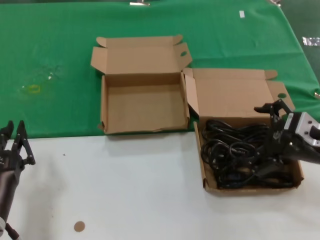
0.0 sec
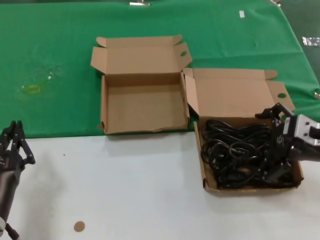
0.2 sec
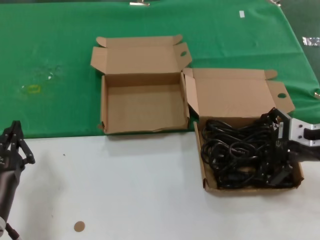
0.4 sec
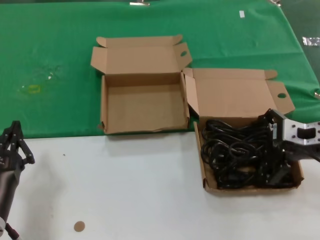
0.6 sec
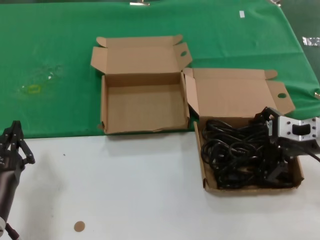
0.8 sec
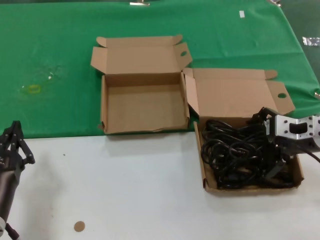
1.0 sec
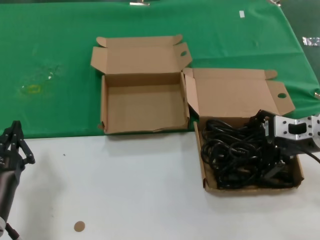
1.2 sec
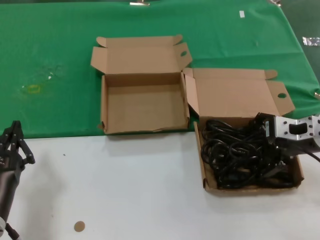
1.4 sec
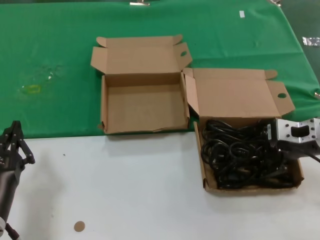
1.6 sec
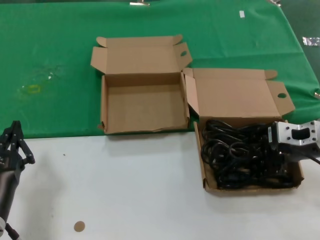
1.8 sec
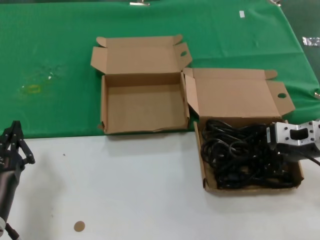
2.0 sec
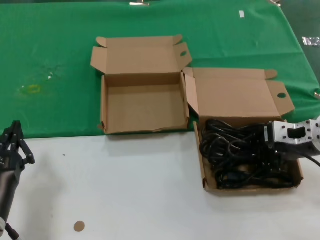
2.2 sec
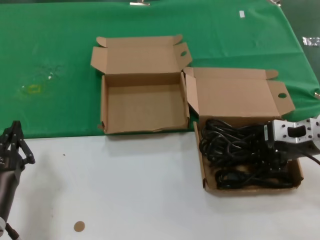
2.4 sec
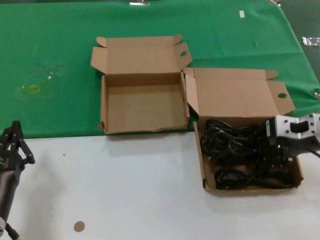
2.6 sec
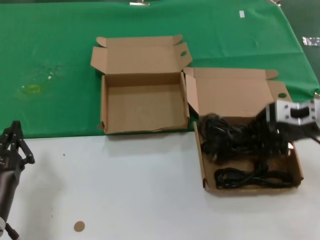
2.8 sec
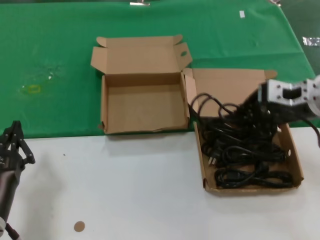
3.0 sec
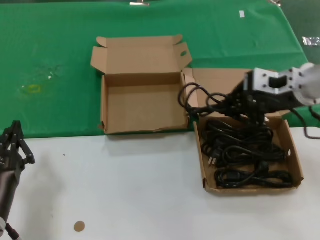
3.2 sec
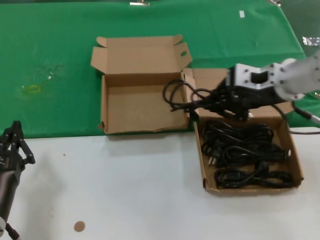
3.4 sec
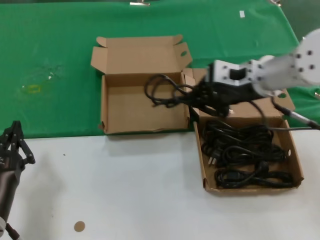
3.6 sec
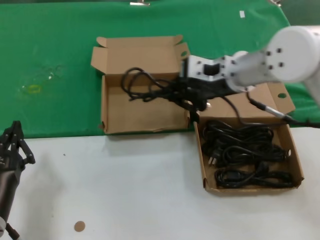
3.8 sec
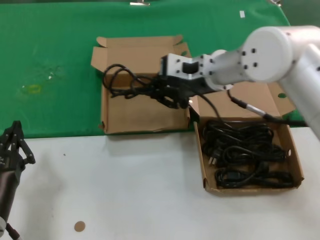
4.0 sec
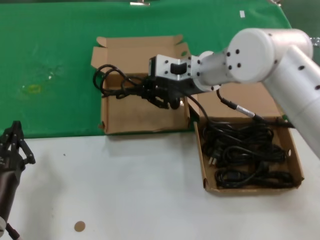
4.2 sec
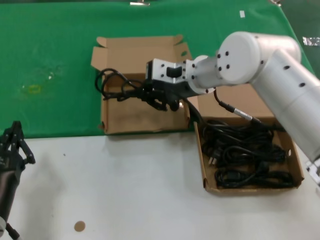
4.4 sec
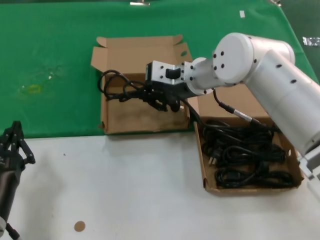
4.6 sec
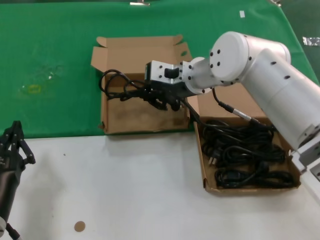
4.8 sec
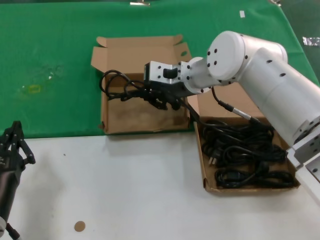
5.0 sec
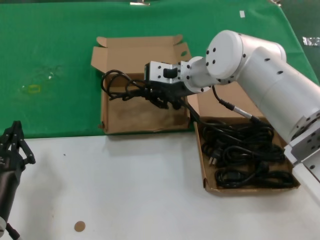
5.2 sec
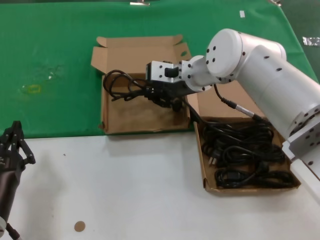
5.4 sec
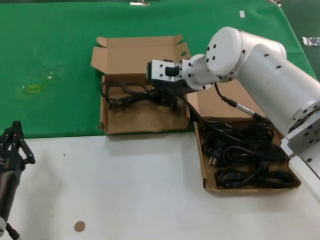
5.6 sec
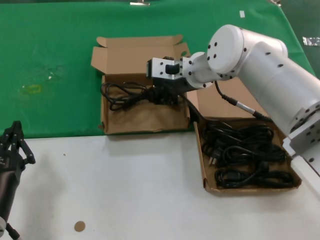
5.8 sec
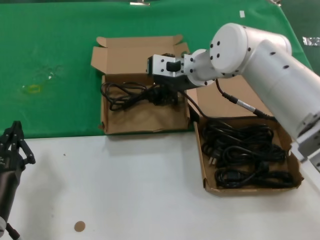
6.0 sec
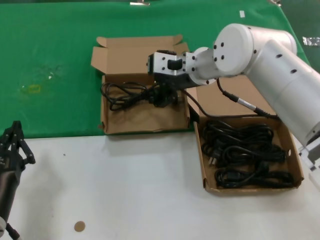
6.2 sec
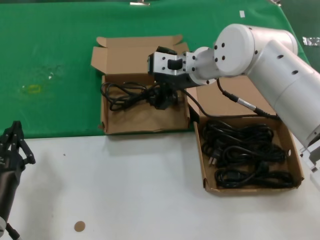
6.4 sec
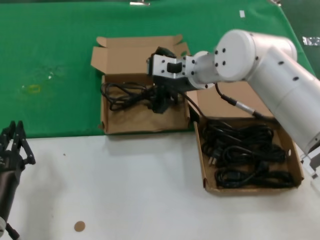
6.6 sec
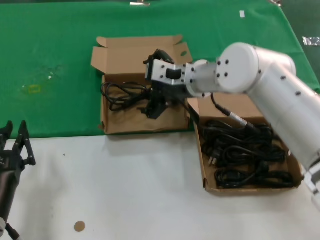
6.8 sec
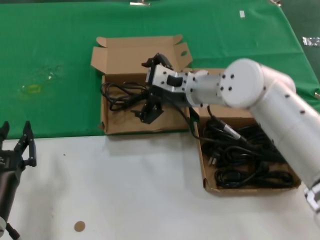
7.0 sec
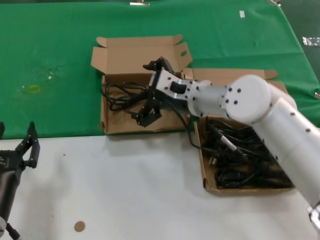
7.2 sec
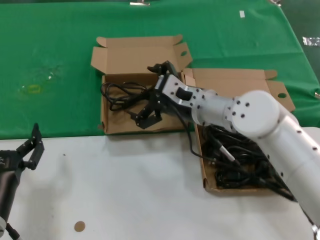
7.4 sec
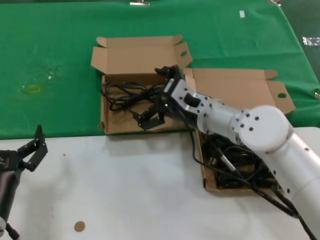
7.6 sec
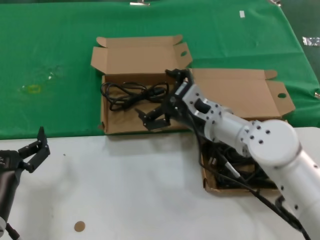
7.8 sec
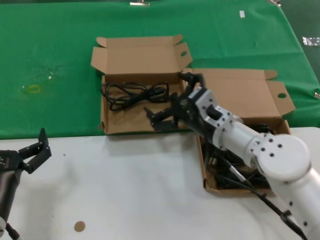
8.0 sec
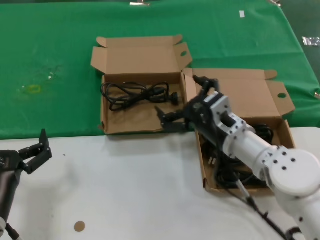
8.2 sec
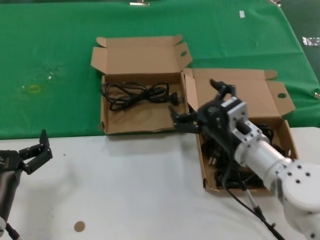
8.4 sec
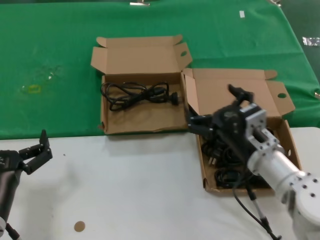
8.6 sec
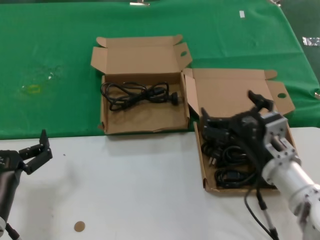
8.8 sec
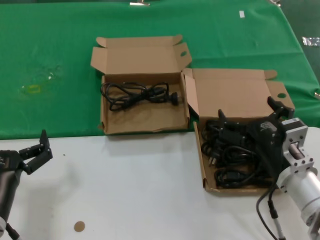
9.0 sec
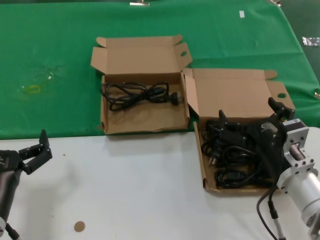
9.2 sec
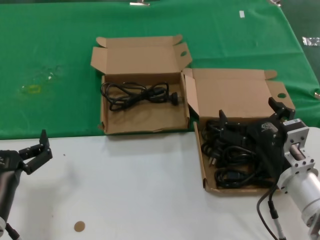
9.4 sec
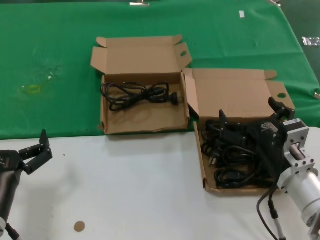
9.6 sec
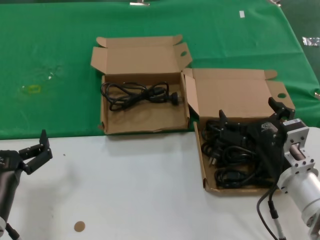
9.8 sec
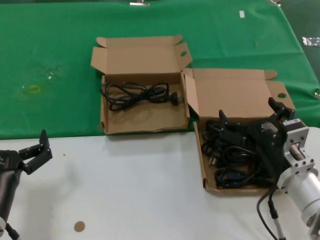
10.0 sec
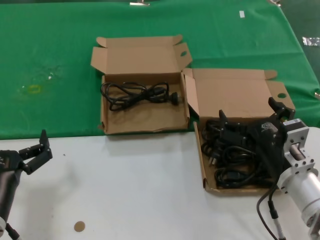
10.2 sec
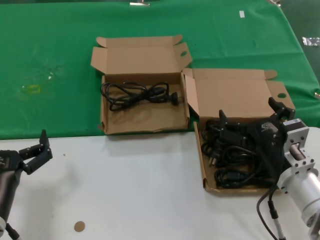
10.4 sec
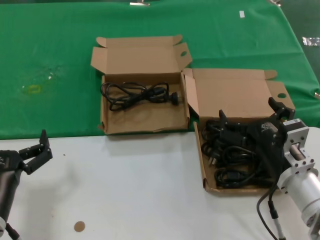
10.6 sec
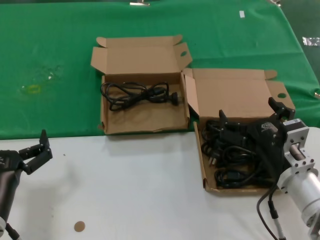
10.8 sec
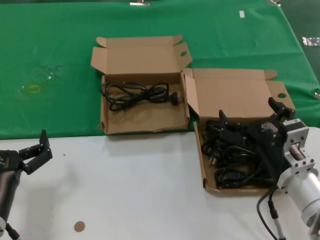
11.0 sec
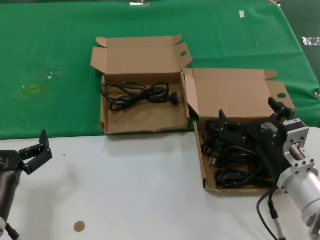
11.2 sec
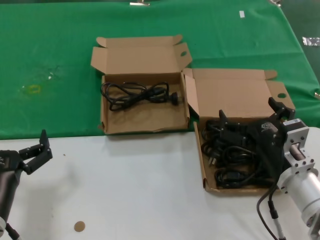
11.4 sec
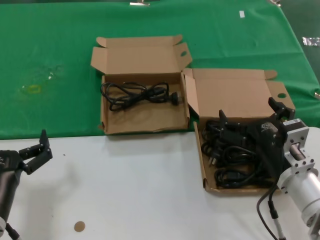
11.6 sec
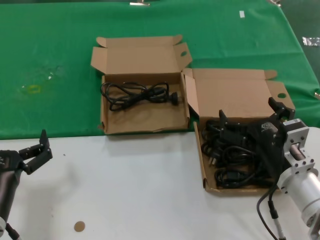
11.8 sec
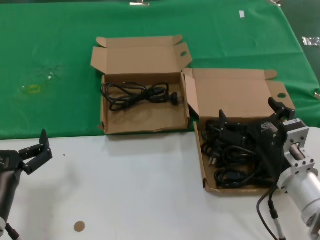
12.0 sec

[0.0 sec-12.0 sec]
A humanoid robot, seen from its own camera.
Task of the whole recording: take the parts from the box containing them and put them into an empty box.
Step, 0.0 sec to 2.2 sec: Grasp the data cable.
Step, 2.4 sec to 6.8 sec: Place the data cable in the another box.
0.0 sec to 1.6 sec: The right hand is displaced forward by approximately 5 cm.
1.6 sec to 3.0 sec: The right hand is displaced upward by roughly 5 cm.
3.0 sec to 4.4 sec: The right hand goes approximately 20 cm to the left and forward.
4.4 sec to 6.0 sec: There are only small adjustments of the hands.
6.0 sec to 7.6 sec: The right hand moves downward and backward, about 10 cm.
7.6 sec to 9.0 sec: The right hand shifts roughly 20 cm backward, to the right and downward.
9.0 sec to 12.0 sec: Neither hand changes place.

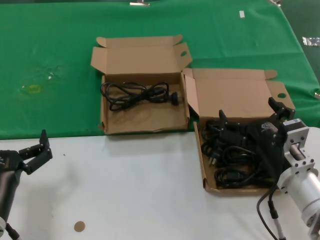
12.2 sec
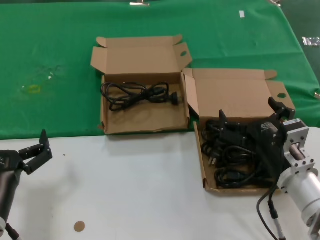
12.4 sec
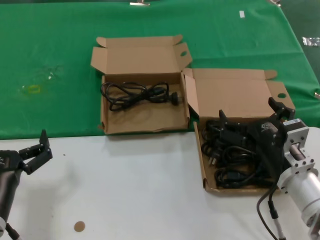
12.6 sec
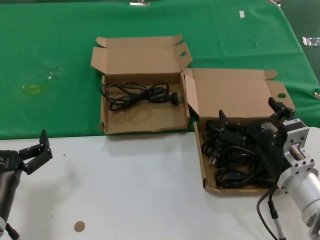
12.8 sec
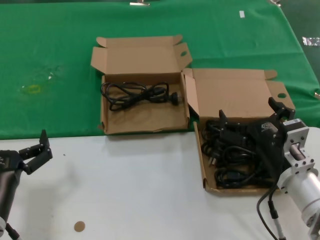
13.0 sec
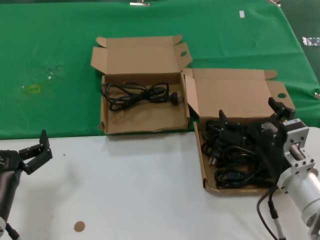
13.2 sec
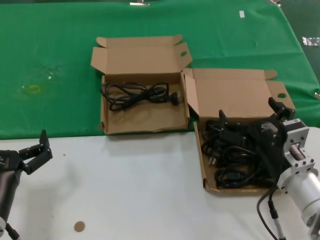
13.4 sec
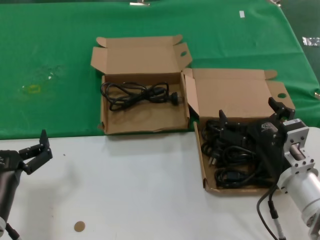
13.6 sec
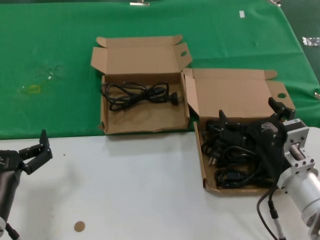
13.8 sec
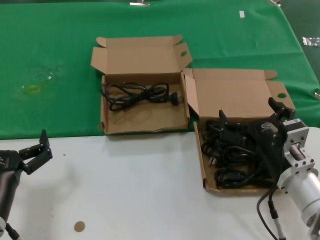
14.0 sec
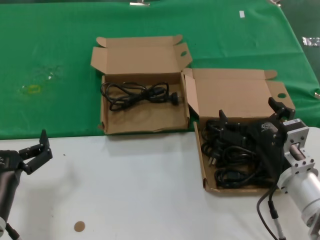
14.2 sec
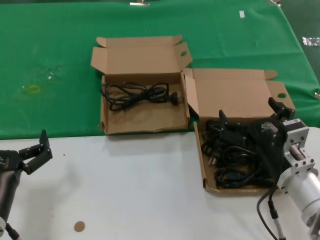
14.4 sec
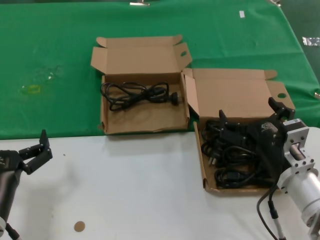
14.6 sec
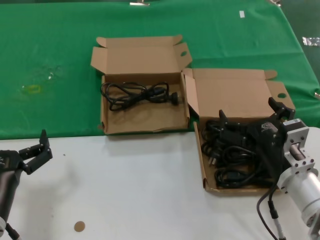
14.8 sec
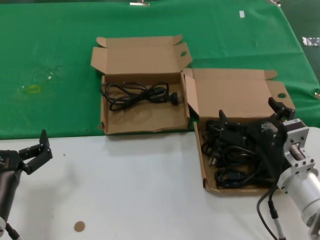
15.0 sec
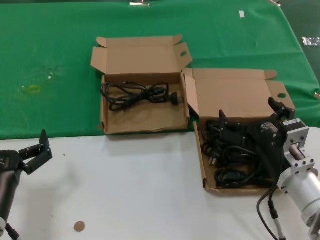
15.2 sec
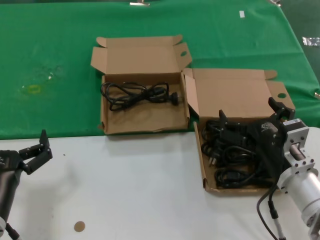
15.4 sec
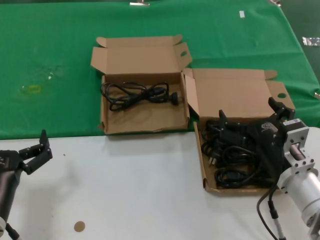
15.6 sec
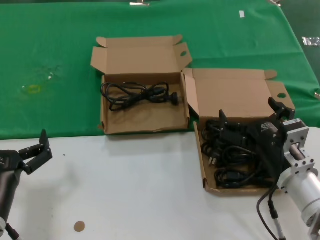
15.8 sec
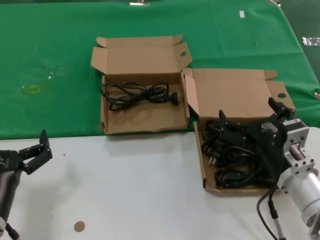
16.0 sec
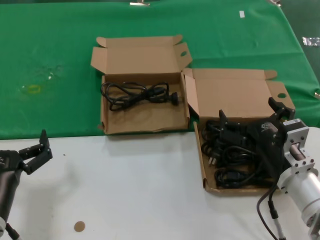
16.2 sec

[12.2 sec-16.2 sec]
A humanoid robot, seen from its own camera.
Task of the whole recording: take the parts from the box containing them and put them into an empty box.
12.2 sec to 16.2 sec: The two hands keep their place.

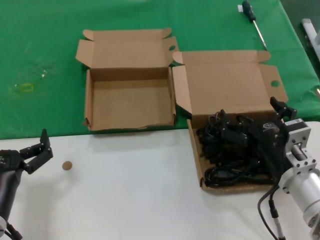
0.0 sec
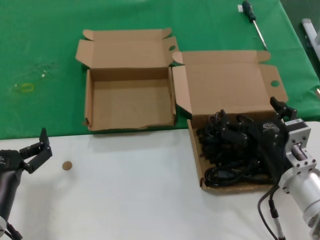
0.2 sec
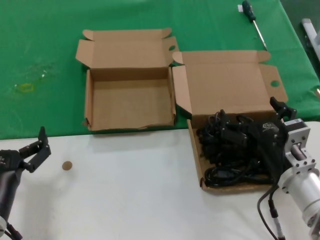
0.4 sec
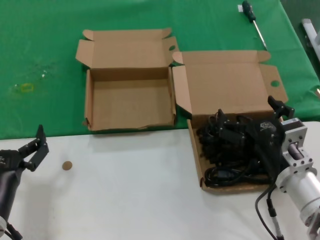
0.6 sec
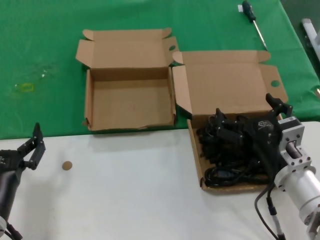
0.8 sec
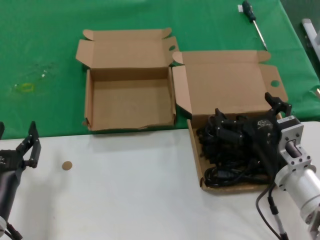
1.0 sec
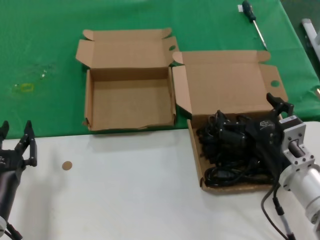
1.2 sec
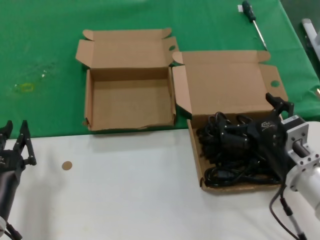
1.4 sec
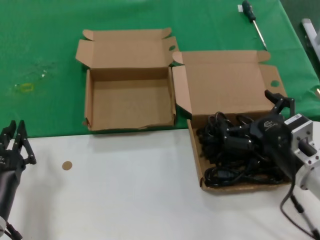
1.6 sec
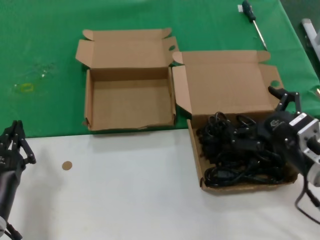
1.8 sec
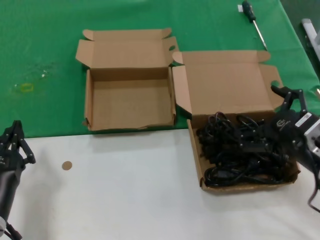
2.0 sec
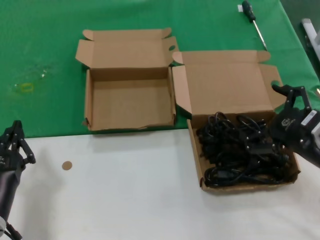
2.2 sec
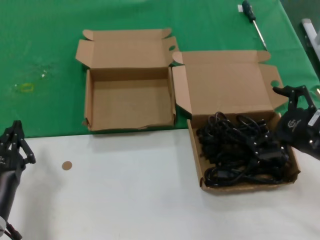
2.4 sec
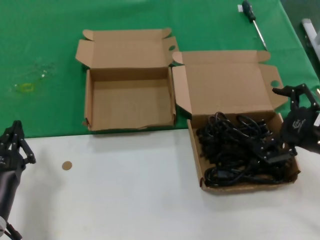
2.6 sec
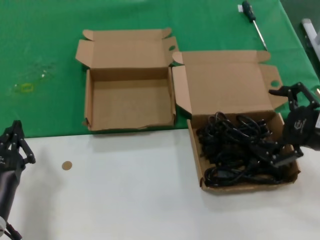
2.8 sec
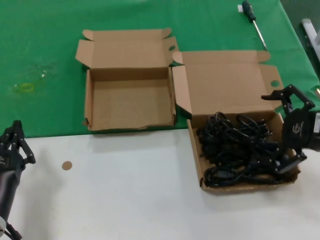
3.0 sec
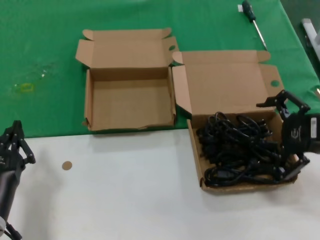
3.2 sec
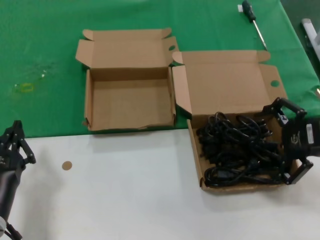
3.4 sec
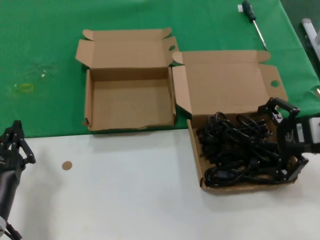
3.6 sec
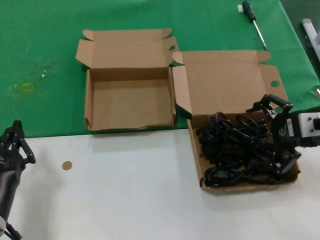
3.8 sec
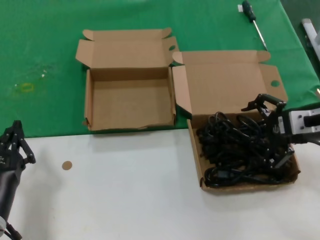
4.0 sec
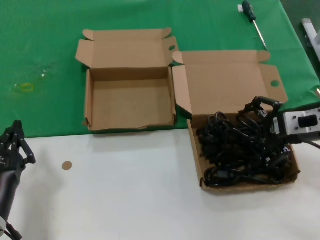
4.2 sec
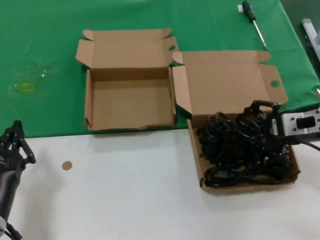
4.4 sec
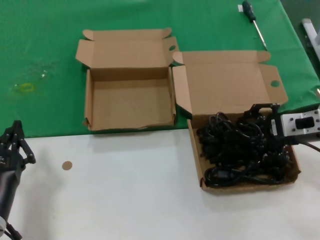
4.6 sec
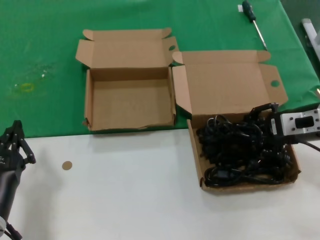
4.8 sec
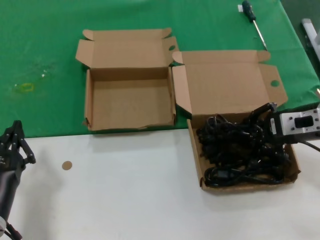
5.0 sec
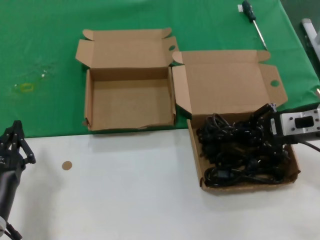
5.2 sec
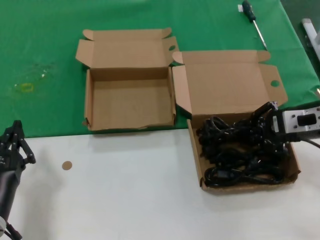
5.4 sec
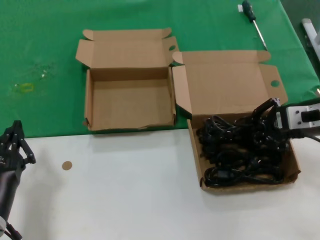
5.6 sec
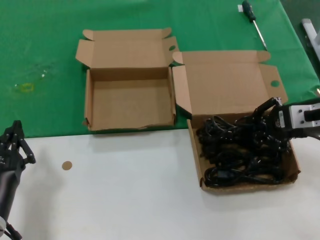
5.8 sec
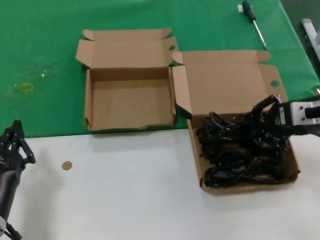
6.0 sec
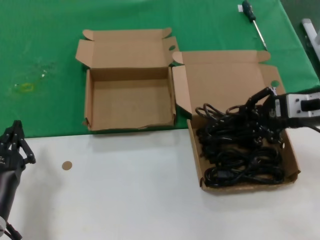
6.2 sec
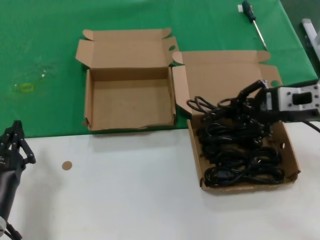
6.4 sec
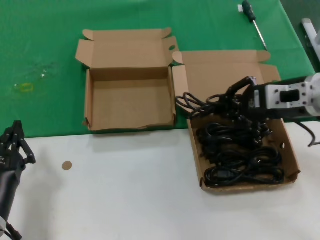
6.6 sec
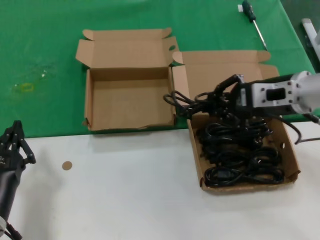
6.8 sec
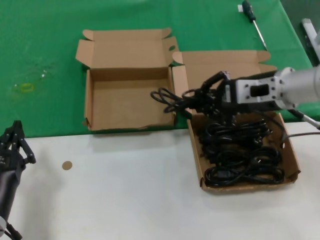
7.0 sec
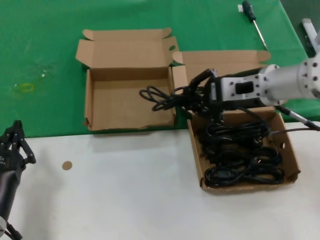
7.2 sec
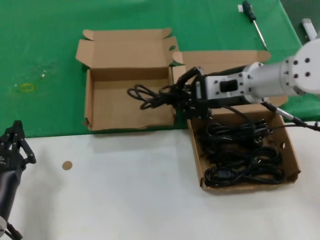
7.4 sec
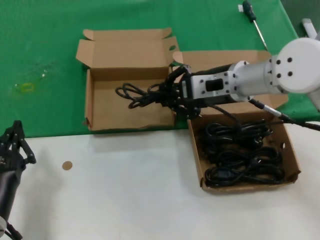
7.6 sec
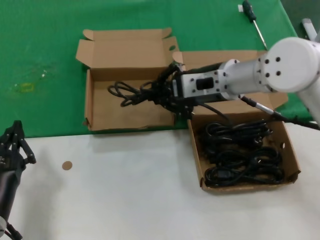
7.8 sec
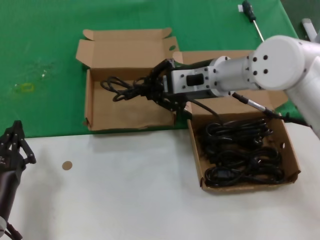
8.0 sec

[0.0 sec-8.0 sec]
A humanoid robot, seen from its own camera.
Task of the whole recording: take the parts from the box containing them and put them into an empty box.
Step, 0.0 sec to 5.0 sec: Grasp the data cable.
0.0 sec to 1.6 sec: The hands make only small movements.
1.6 sec to 3.2 sec: The right hand goes some 15 cm upward and to the right.
3.2 sec to 4.8 sec: The right hand goes approximately 10 cm forward.
4.8 sec to 6.4 sec: There are only small adjustments of the hands.
6.4 sec to 8.0 sec: The right hand moves to the left and forward, approximately 20 cm.
